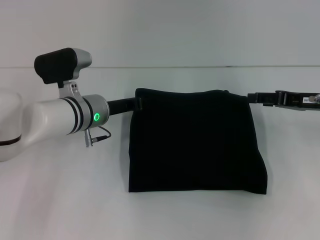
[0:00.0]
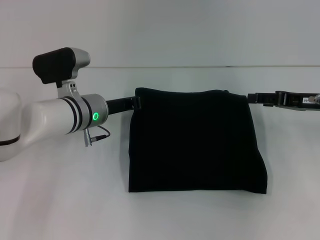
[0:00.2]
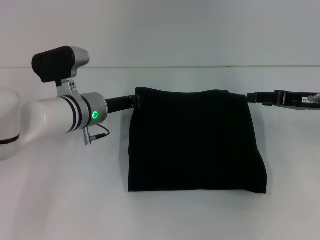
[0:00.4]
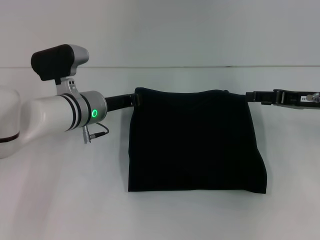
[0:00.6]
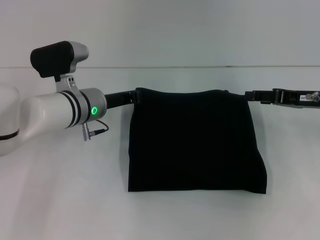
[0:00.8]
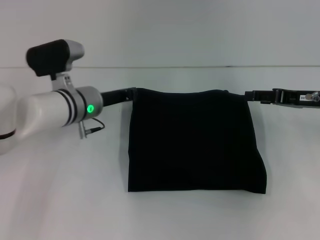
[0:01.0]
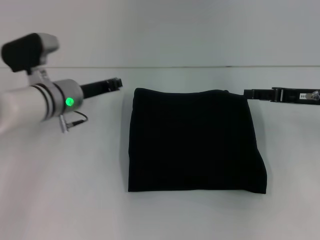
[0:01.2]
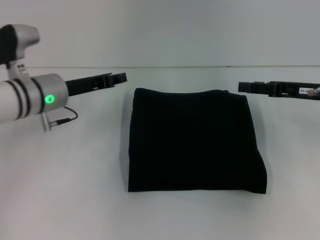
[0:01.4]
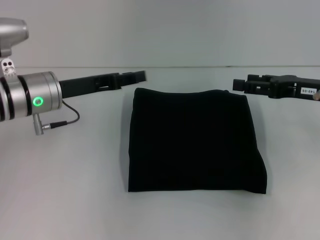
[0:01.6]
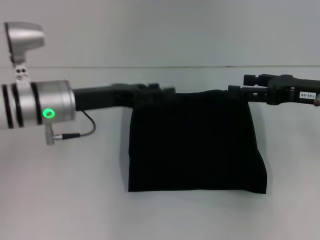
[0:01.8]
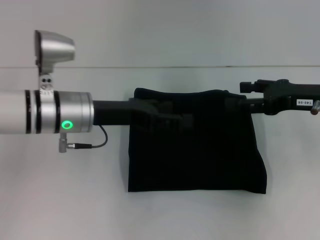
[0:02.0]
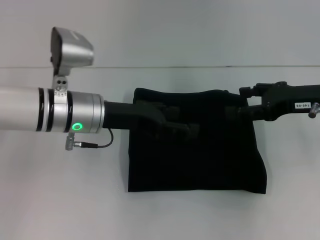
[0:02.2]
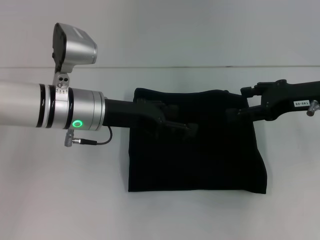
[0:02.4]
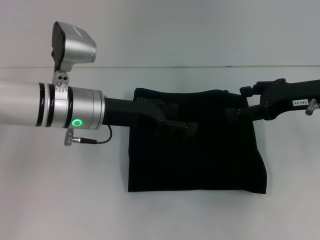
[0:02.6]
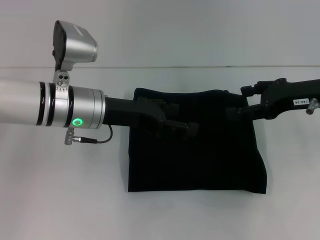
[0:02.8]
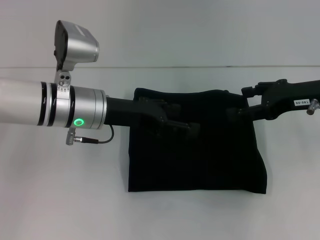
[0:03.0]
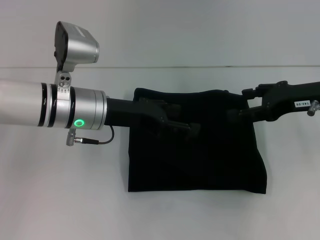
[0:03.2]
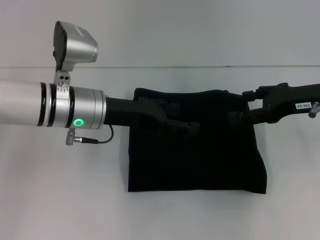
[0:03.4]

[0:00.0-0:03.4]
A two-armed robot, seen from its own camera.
0:00.0 to 0:01.6: The left gripper moves to the left and upward, some 10 cm, and closes, then reopens.
0:01.6 to 0:03.4: The left gripper goes roughly 5 cm to the right, and opens.

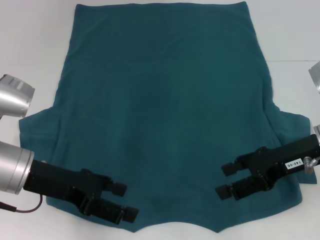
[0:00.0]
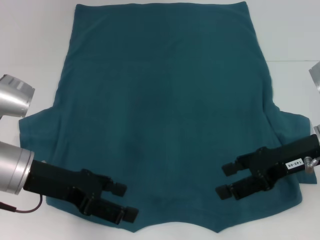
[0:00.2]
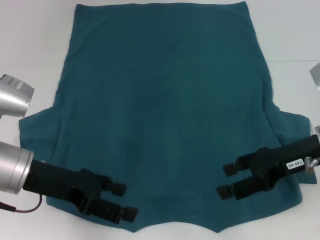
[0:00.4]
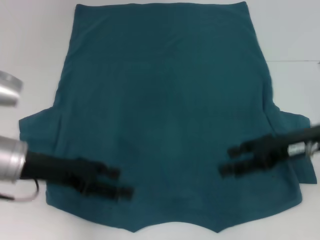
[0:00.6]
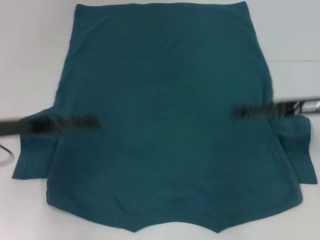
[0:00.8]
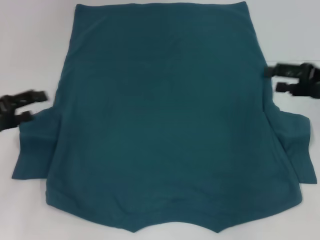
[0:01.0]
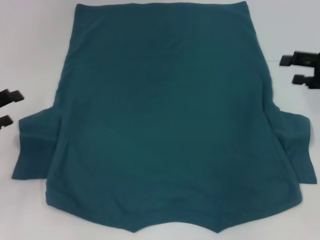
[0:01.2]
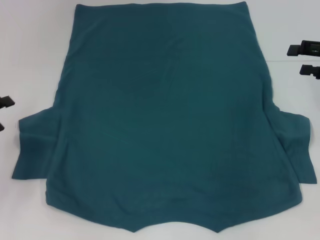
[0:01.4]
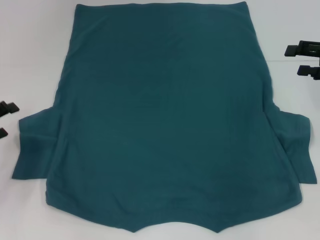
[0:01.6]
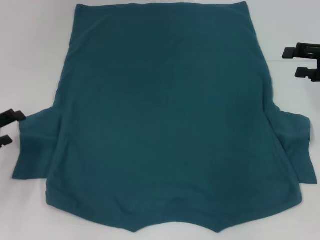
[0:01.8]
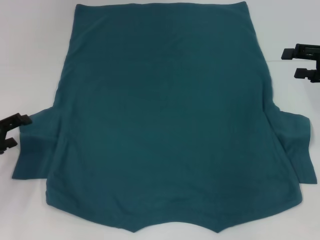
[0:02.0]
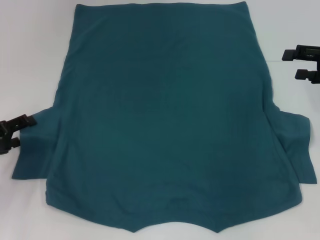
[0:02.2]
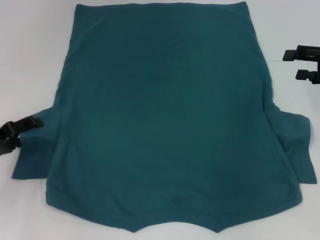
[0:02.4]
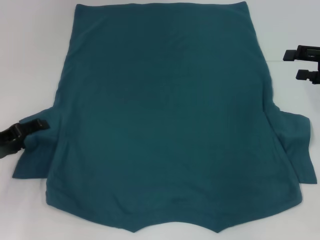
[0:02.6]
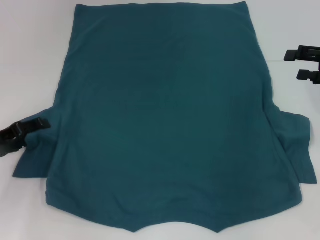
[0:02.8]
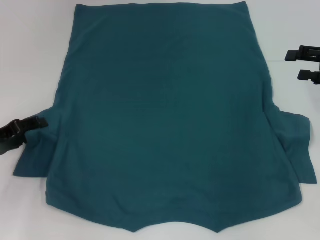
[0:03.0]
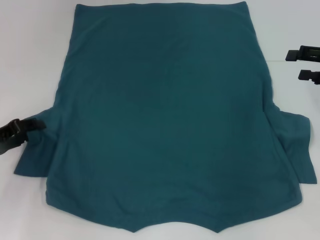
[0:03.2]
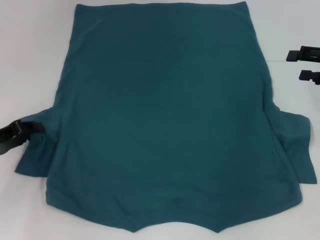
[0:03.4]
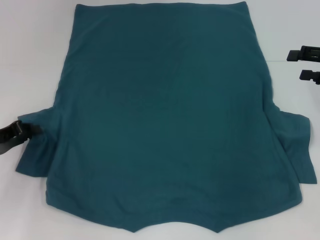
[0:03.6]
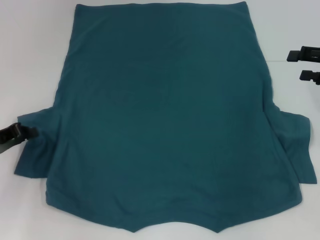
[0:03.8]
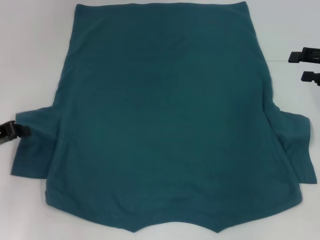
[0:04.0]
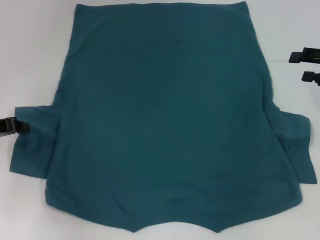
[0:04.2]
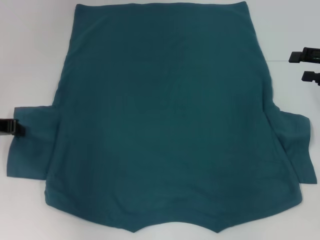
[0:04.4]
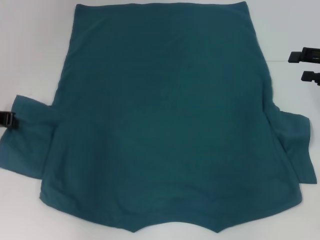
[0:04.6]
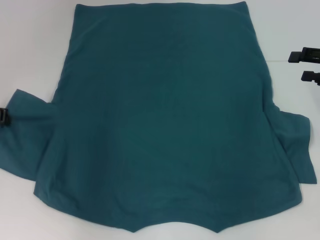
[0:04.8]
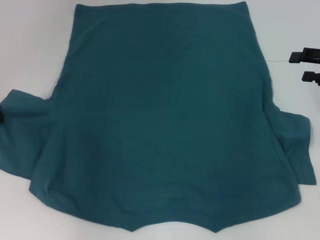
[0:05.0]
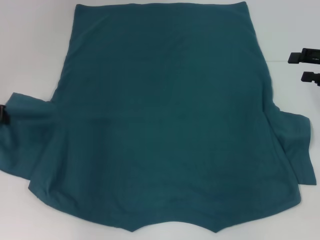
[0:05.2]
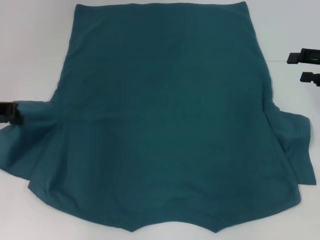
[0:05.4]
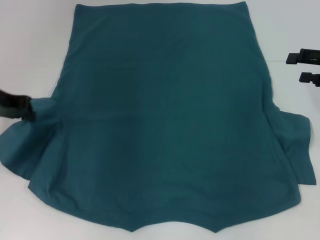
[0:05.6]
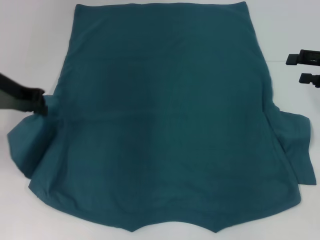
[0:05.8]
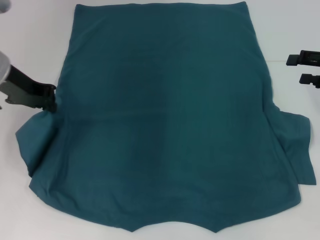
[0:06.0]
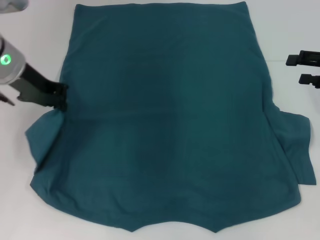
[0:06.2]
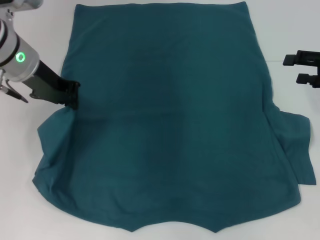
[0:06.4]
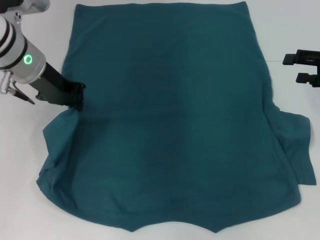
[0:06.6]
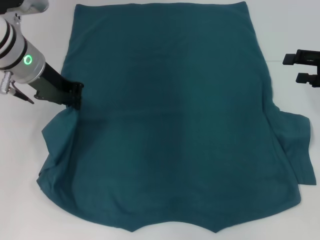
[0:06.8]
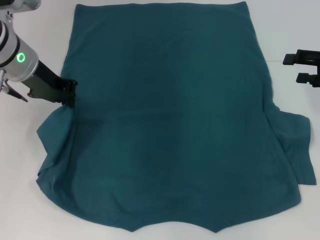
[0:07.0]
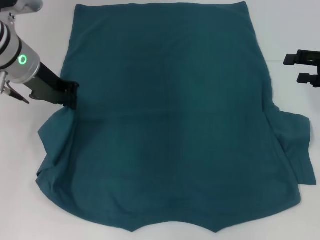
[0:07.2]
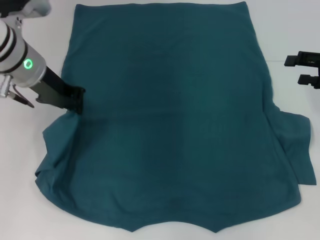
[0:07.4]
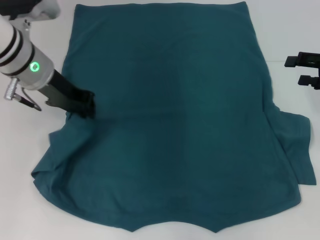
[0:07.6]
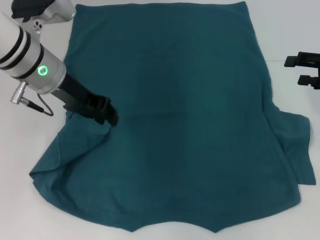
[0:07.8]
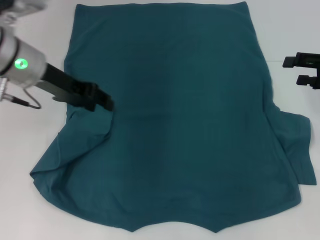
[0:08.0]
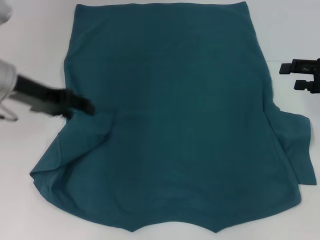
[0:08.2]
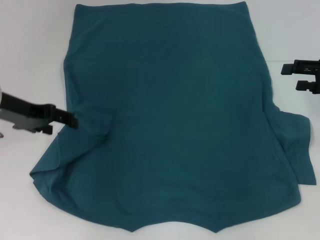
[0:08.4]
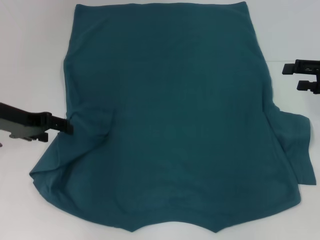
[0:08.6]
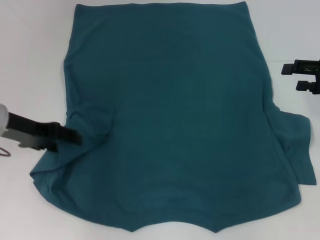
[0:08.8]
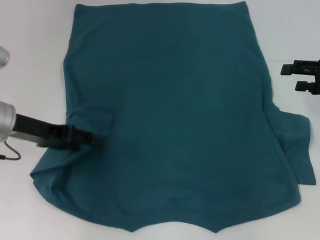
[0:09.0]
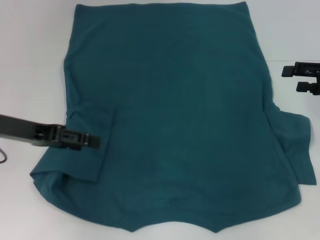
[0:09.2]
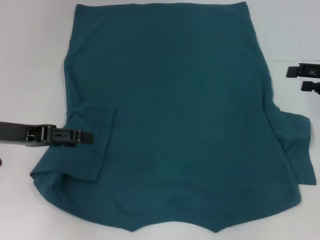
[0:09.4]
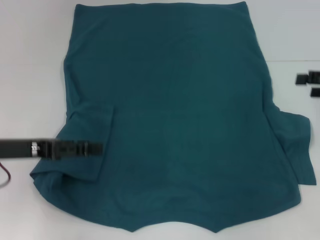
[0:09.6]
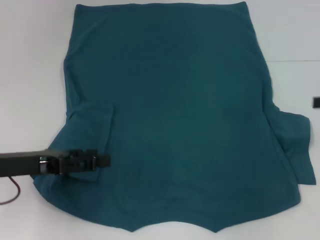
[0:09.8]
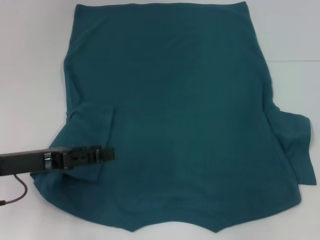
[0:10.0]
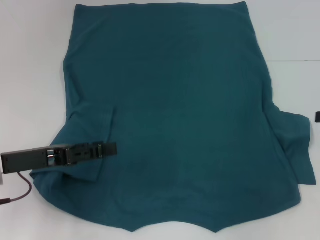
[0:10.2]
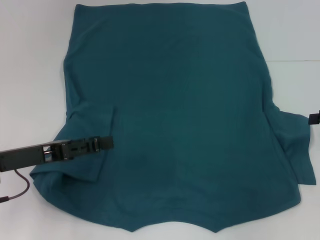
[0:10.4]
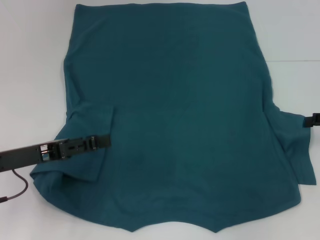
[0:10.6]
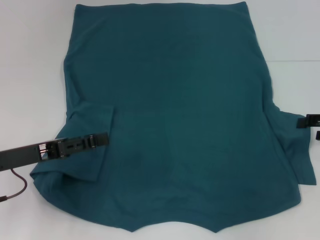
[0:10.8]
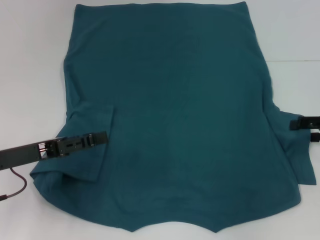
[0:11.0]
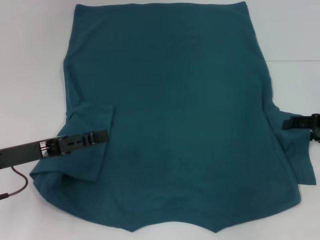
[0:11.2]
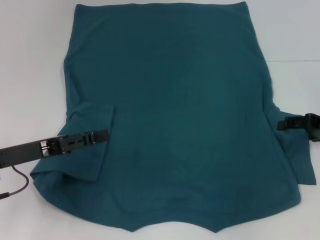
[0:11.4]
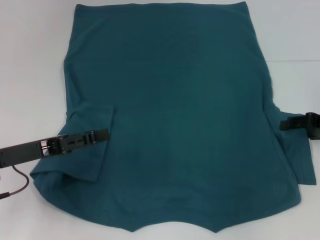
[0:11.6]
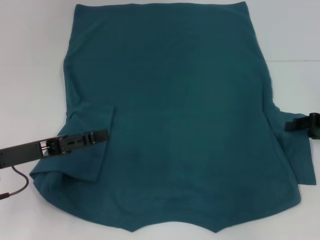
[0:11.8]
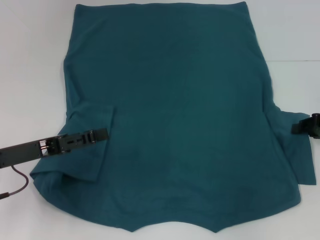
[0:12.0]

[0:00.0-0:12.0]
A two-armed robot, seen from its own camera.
Step, 0:00.0 to 0:10.0: Fold the bottom left sleeve with your left hand.
0:00.0 to 0:01.6: The right gripper is displaced to the right and forward by approximately 15 cm. The left gripper shifts approximately 15 cm to the left.
0:01.6 to 0:03.0: There are only small adjustments of the grippers.
0:03.0 to 0:04.4: The left gripper heads upward, covering about 5 cm, and closes up.
0:04.4 to 0:06.0: The left gripper moves to the right and upward, roughly 10 cm.
0:06.0 to 0:07.6: The left gripper heads to the right, covering roughly 5 cm.
0:07.6 to 0:09.0: The left gripper goes some 10 cm to the left and backward, and opens up.
0:09.0 to 0:10.4: The left gripper heads backward, covering about 5 cm. Meanwhile the right gripper ends up roughly 5 cm from where it was.
0:10.4 to 0:12.0: The right gripper moves some 5 cm, and closes up.

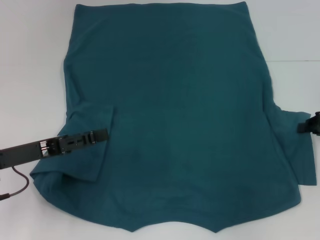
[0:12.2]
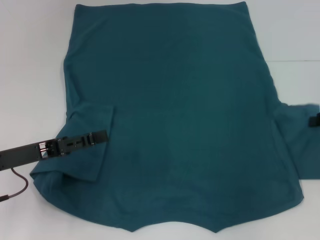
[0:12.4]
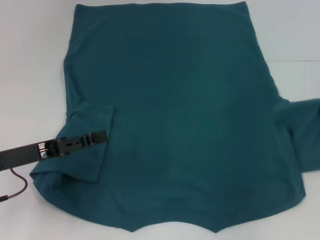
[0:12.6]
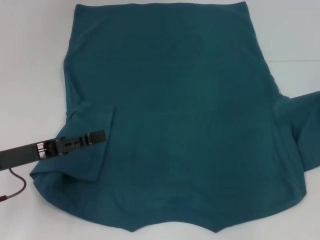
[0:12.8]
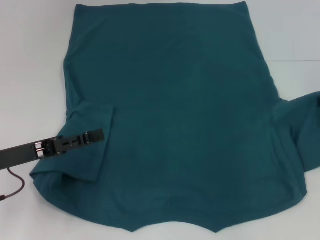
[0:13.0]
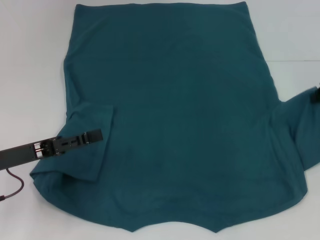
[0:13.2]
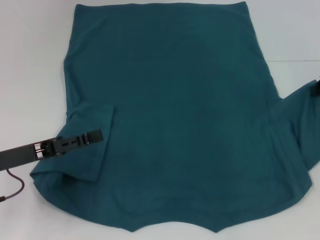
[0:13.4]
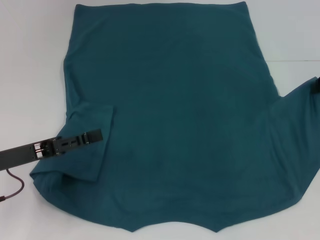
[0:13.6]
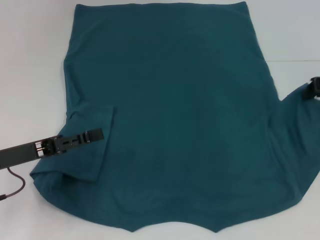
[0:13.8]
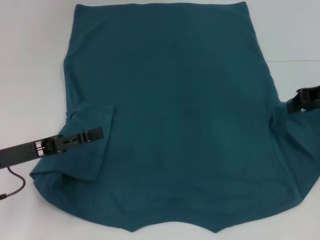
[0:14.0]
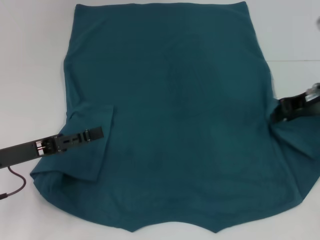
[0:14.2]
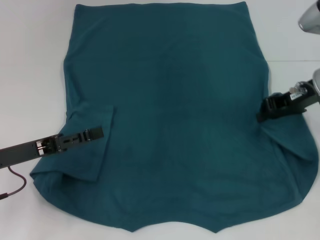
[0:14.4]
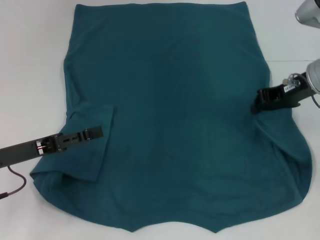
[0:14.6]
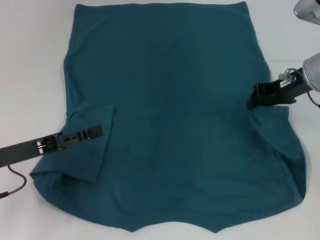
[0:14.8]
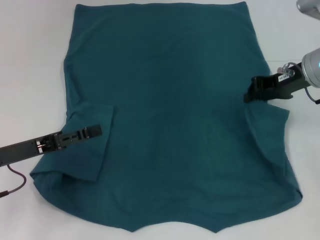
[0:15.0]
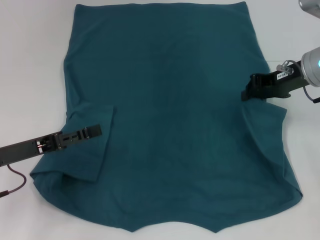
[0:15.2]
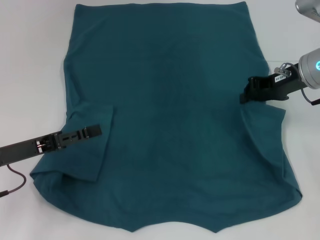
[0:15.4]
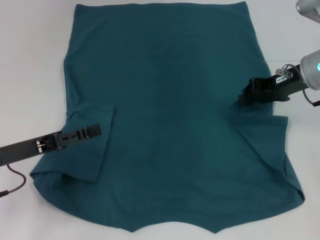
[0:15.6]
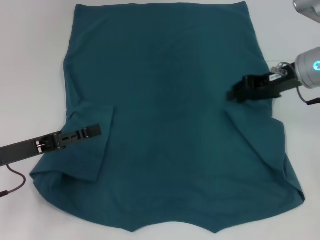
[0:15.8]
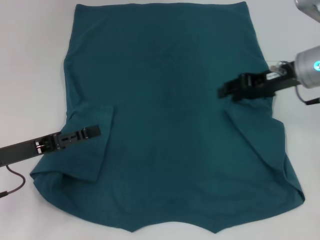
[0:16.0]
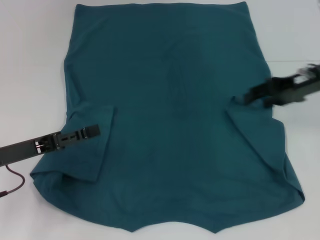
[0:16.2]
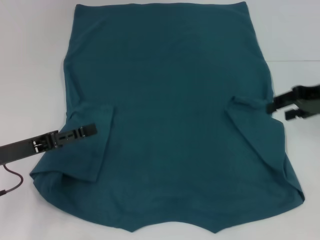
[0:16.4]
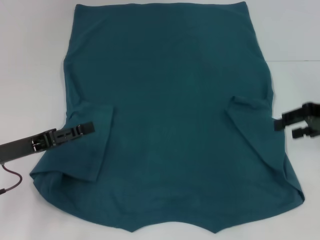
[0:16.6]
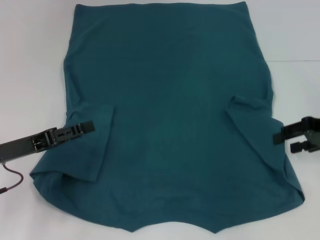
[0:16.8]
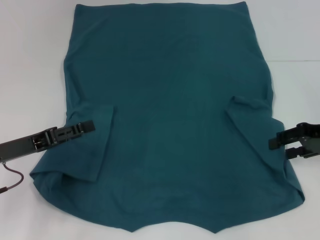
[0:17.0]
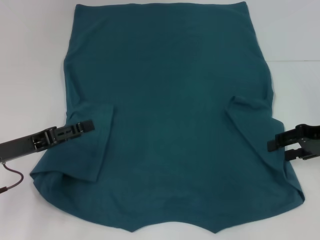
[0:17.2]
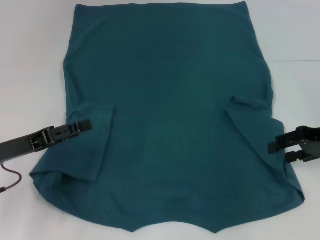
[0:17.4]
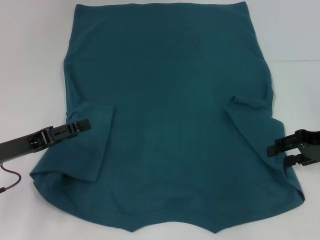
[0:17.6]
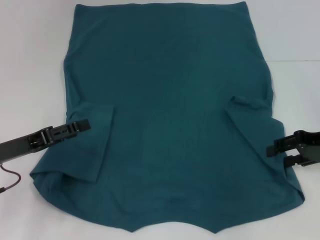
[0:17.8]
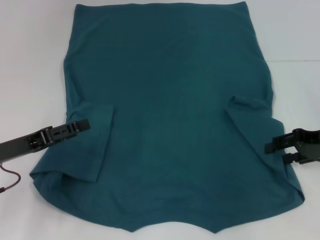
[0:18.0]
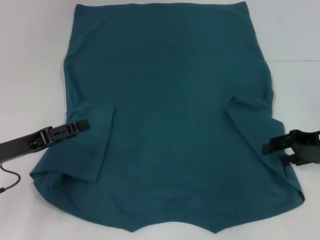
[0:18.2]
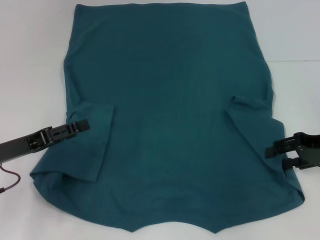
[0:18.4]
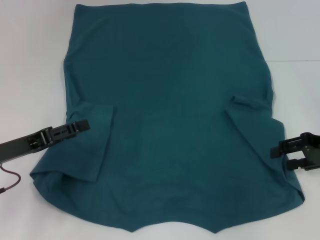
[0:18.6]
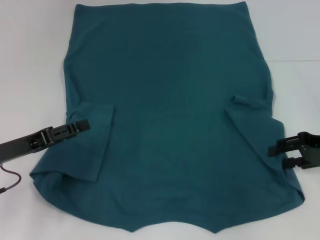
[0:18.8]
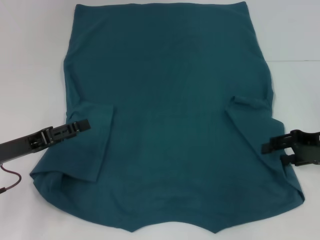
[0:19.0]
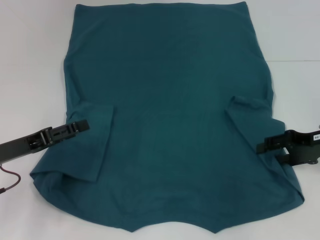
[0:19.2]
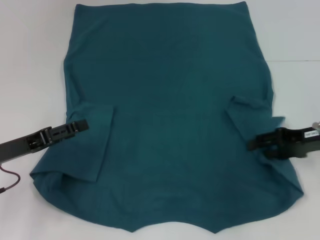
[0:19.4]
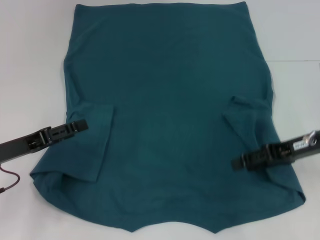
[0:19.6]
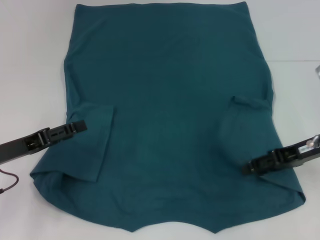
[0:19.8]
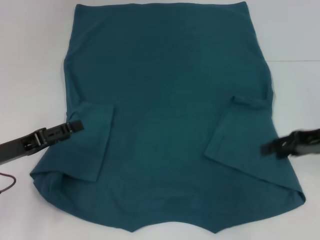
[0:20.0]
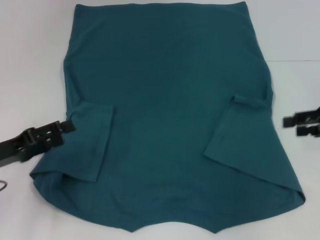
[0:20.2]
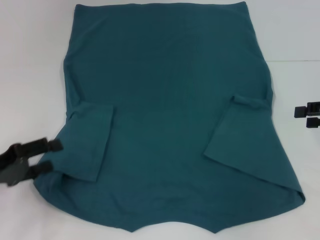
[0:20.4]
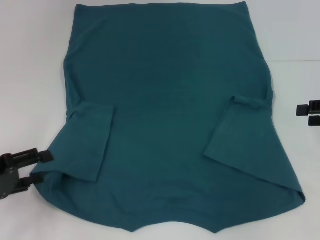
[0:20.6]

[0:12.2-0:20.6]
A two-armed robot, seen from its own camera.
Step, 0:12.2 to 0:20.6: Fold the bottom right sleeve to the right.
0:12.2 to 0:13.6: The right gripper shifts roughly 10 cm upward and forward.
0:13.6 to 0:15.0: The right gripper is displaced to the left by some 10 cm.
0:15.0 to 0:16.4: The right gripper goes roughly 5 cm to the right, and opens up.
0:16.4 to 0:17.8: The right gripper moves downward, some 5 cm.
0:17.8 to 0:19.2: The grippers make only small movements.
0:19.2 to 0:20.6: The right gripper moves to the right, approximately 5 cm, while the left gripper changes place by some 5 cm.
